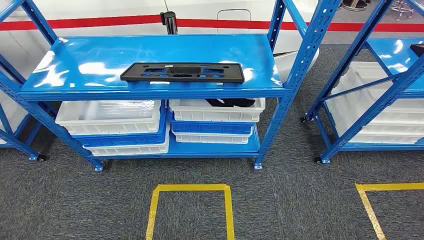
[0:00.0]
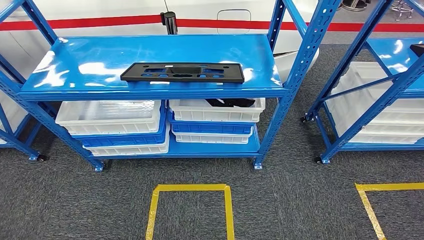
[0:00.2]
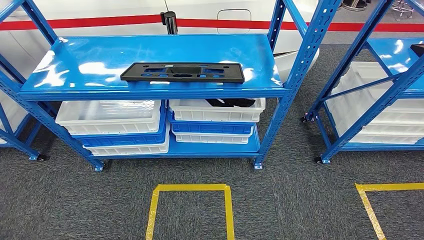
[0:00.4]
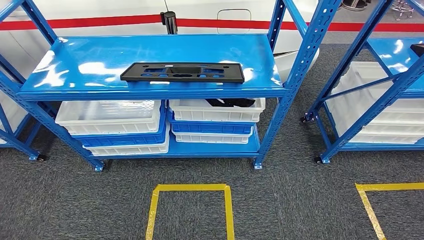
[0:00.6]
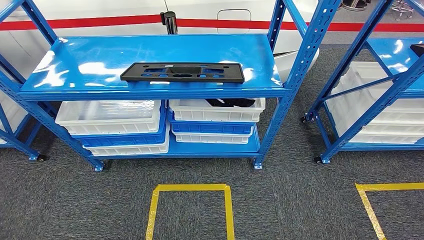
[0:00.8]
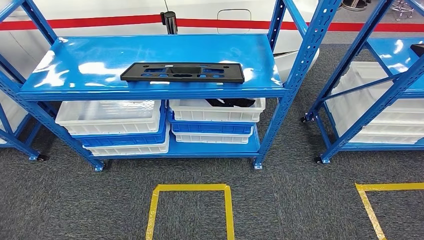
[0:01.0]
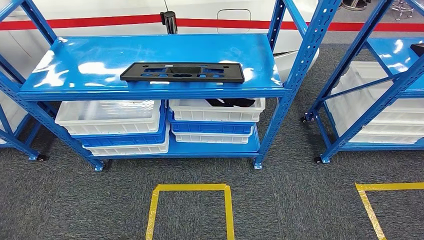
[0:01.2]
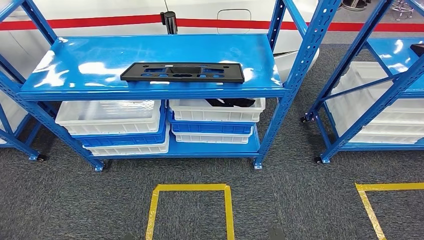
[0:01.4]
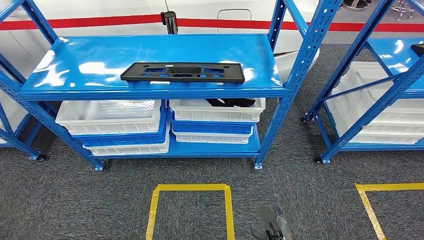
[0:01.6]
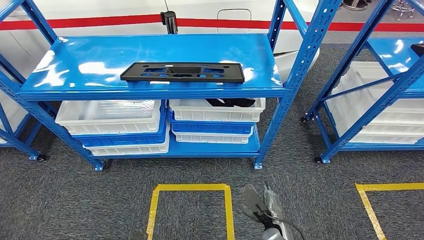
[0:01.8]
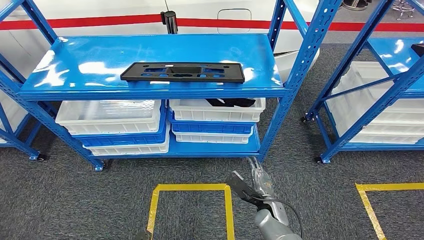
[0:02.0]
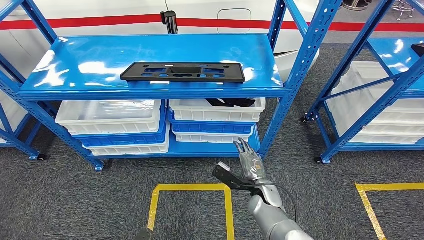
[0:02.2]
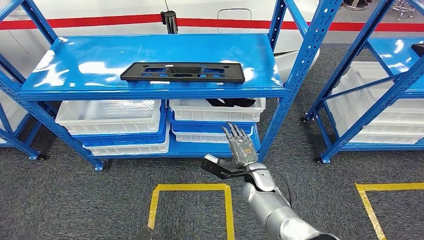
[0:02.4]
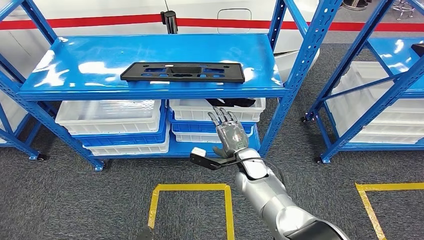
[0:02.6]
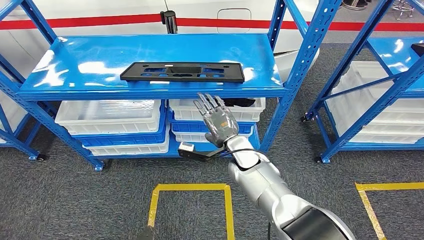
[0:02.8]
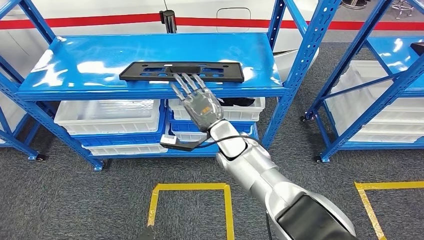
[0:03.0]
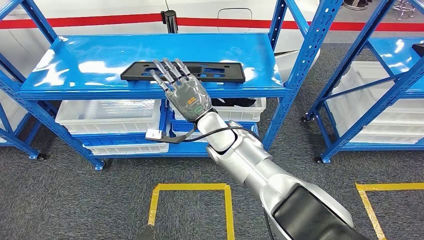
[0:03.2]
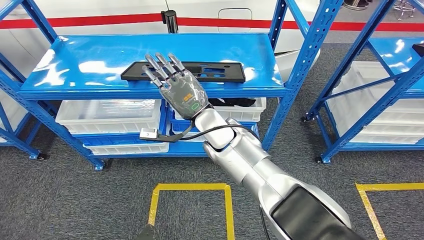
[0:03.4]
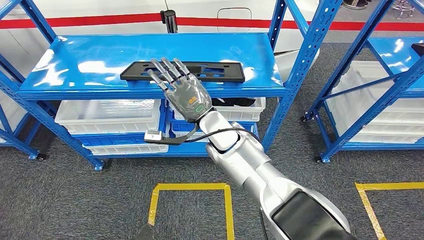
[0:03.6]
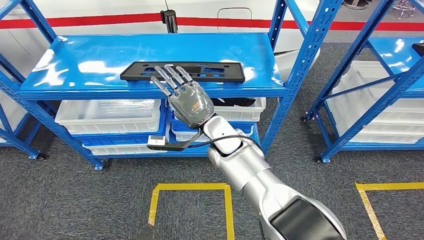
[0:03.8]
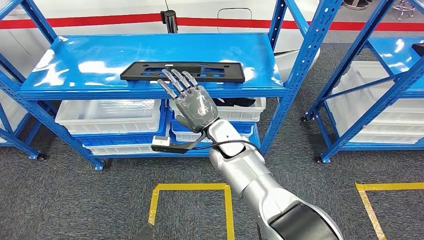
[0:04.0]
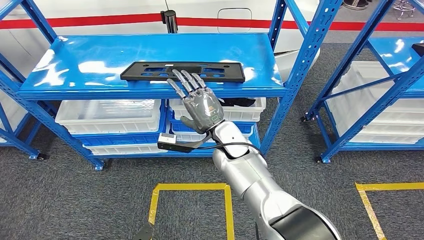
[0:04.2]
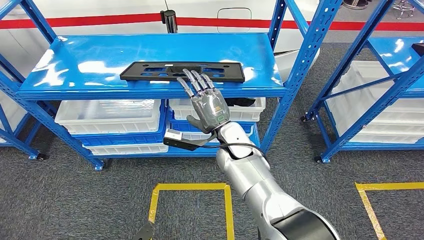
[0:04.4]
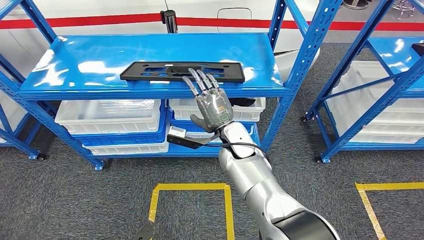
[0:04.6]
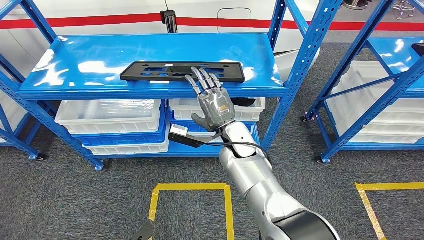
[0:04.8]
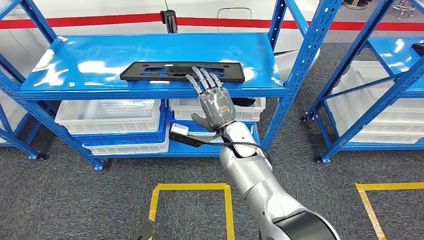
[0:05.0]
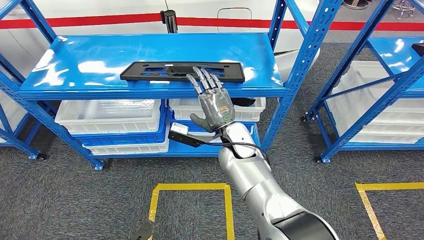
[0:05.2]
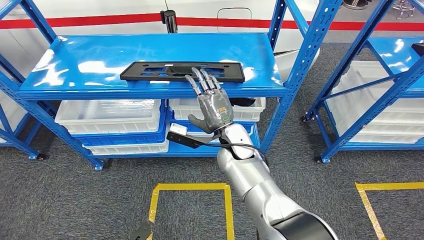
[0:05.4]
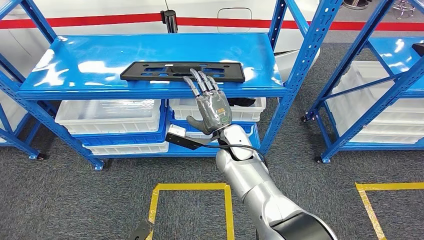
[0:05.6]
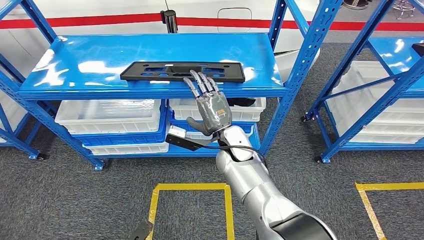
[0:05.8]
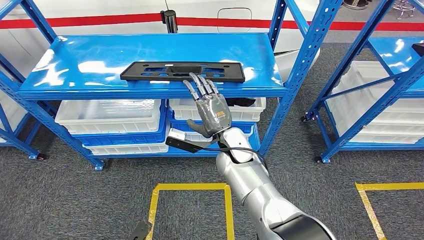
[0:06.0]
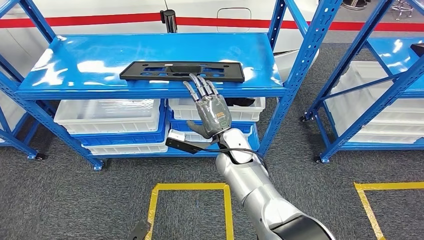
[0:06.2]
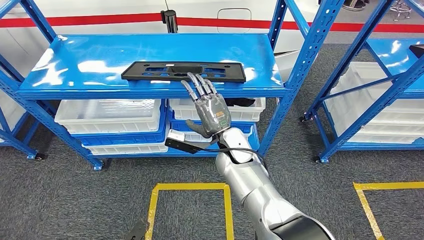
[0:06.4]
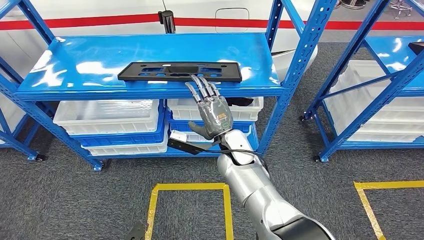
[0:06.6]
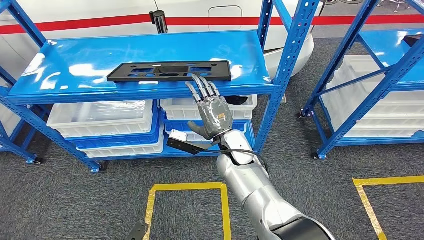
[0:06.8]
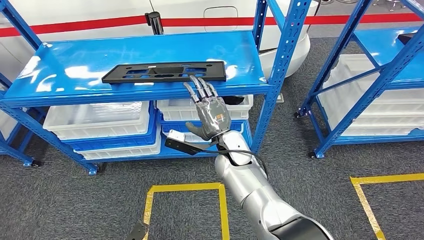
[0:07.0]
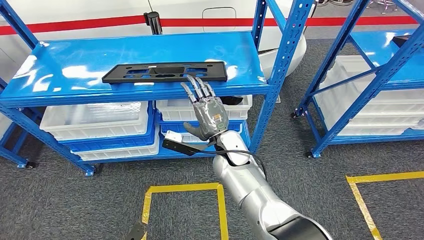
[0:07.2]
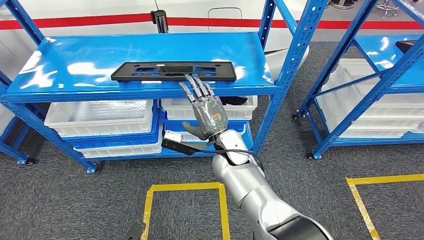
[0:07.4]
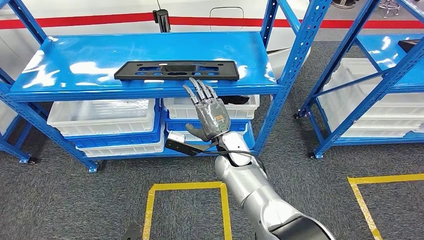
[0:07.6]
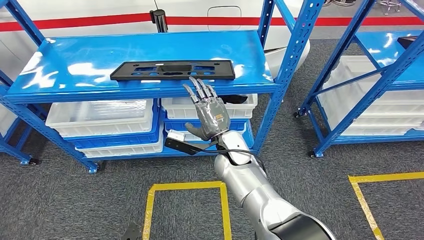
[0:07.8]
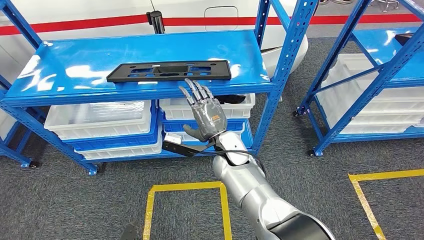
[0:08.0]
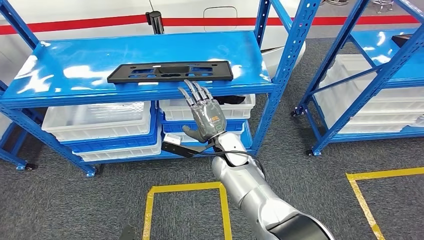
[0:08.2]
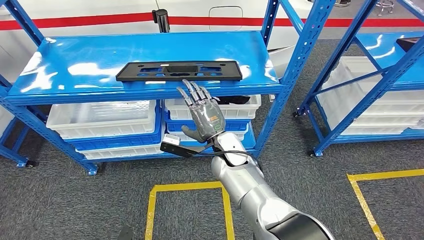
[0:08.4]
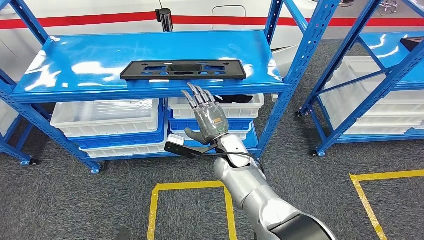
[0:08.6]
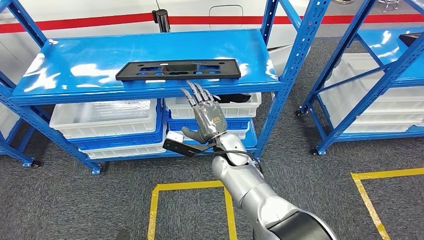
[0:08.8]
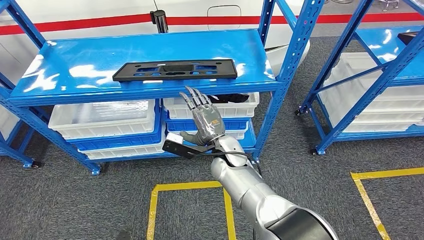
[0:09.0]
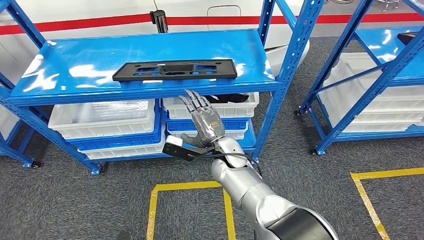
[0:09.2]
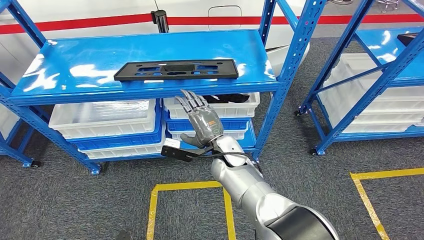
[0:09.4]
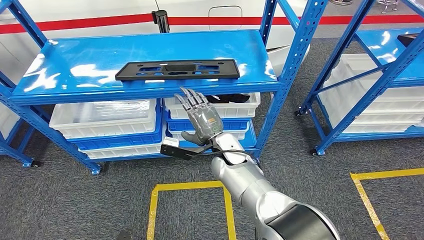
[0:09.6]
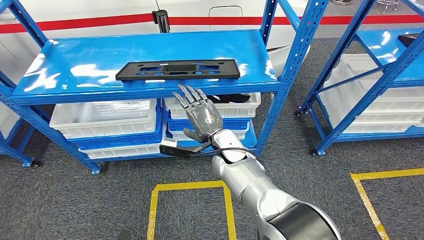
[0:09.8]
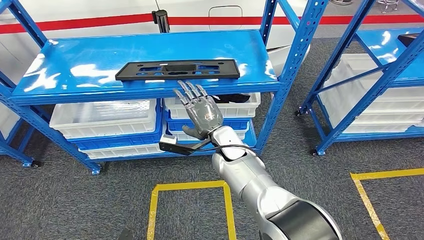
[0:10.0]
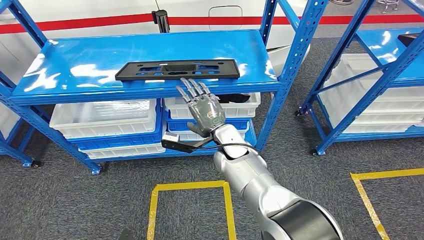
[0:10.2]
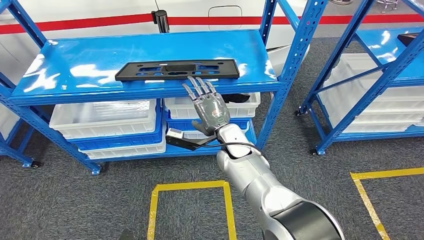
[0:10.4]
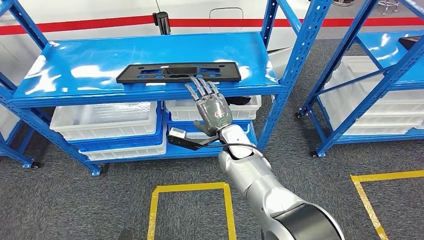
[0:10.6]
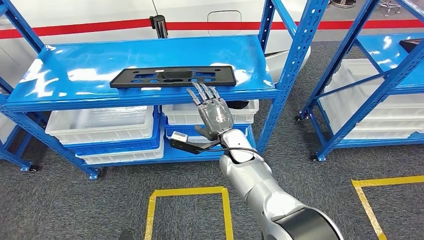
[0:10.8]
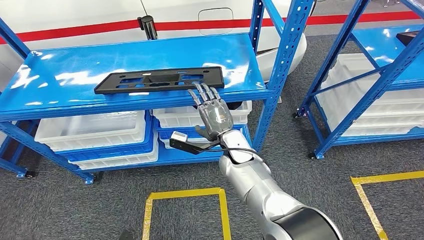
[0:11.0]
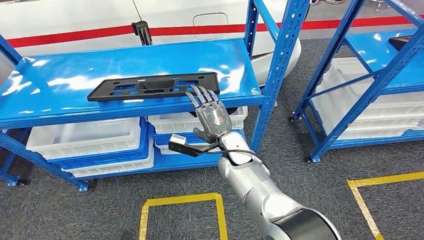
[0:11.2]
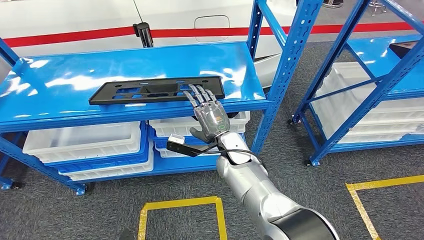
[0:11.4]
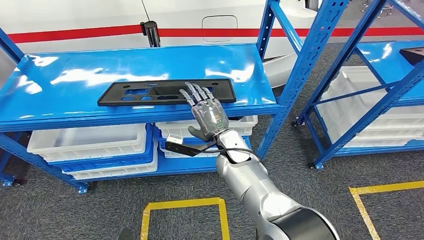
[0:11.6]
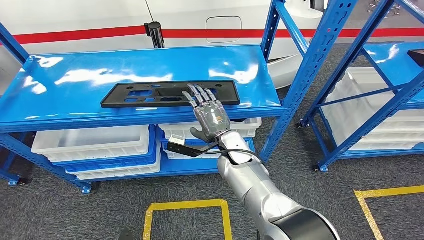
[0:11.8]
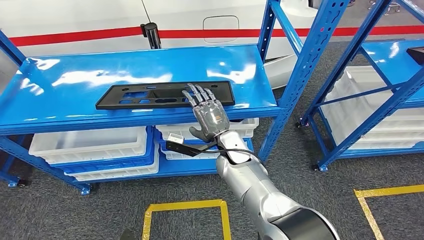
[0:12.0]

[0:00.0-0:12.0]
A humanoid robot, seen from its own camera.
0:01.6 to 0:03.0: The right hand moves upward, forward and to the left, some 40 cm.
0:04.4 to 0:06.0: The hands move only a little.
0:09.0 to 0:10.4: There are only small adjustments of the hands.

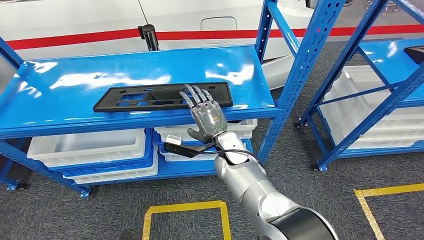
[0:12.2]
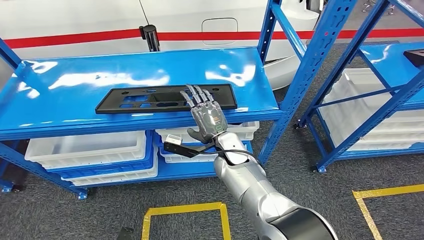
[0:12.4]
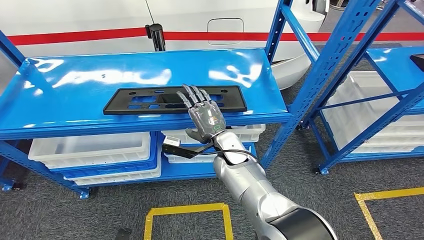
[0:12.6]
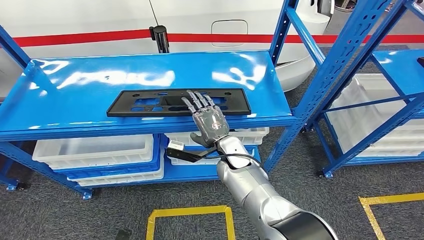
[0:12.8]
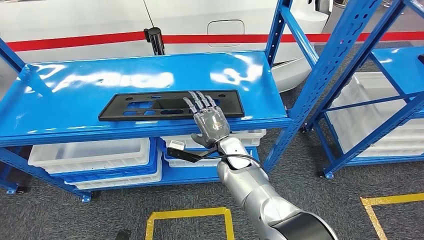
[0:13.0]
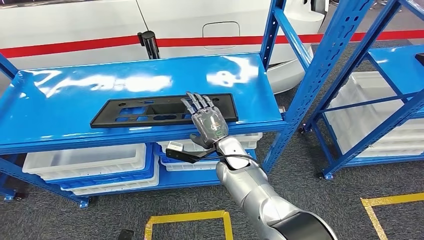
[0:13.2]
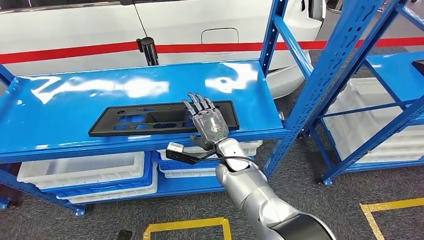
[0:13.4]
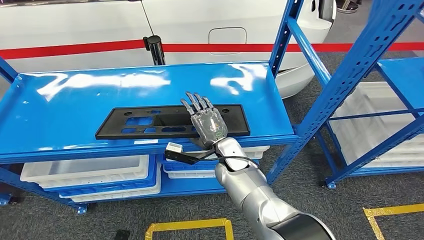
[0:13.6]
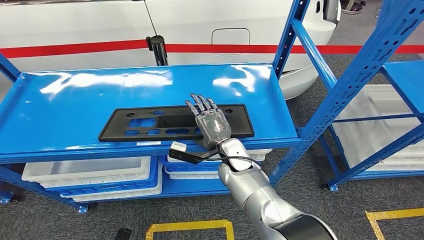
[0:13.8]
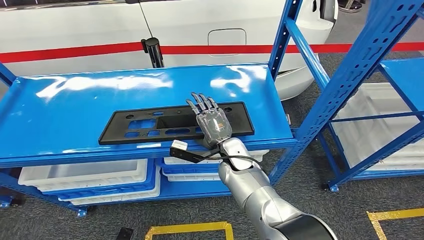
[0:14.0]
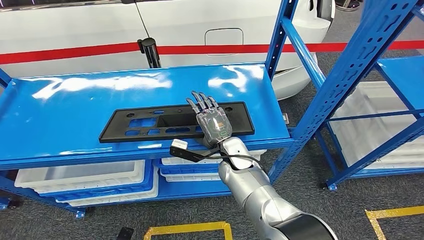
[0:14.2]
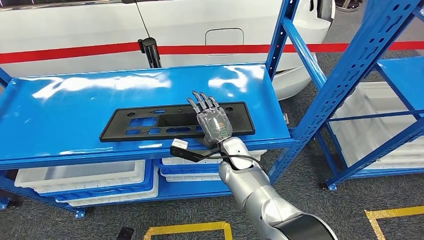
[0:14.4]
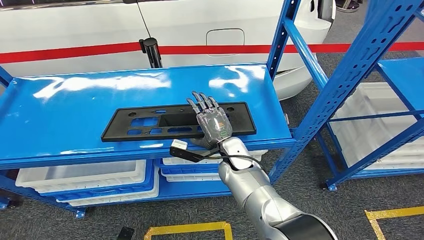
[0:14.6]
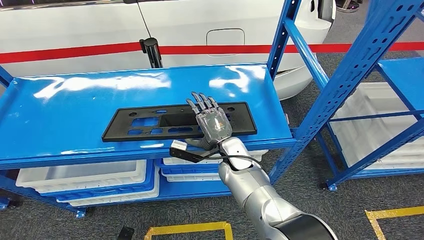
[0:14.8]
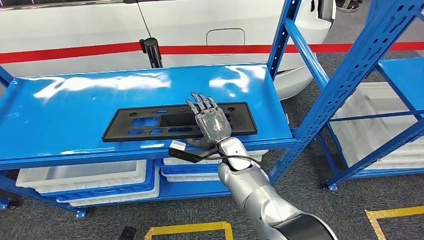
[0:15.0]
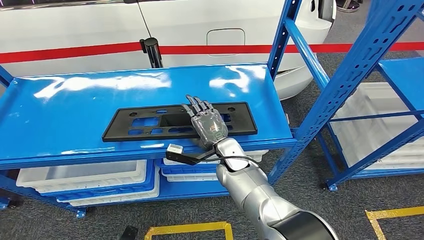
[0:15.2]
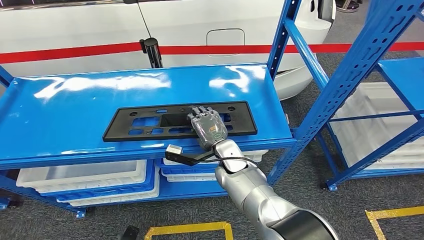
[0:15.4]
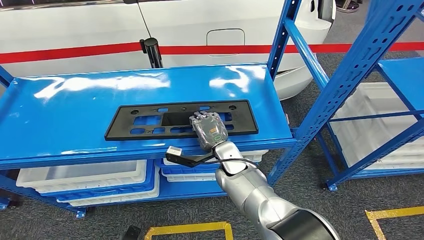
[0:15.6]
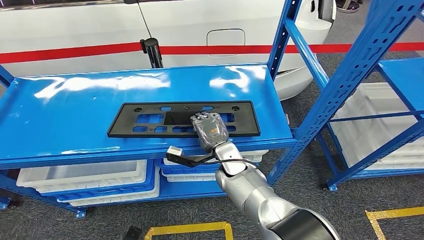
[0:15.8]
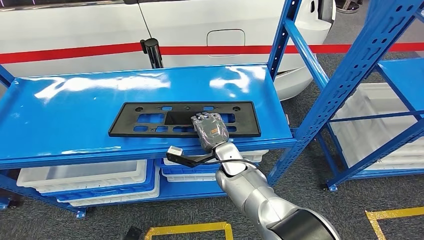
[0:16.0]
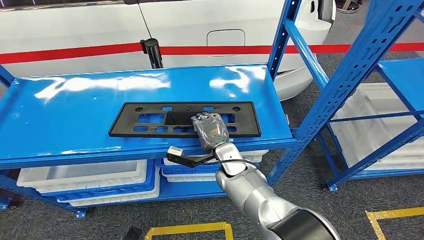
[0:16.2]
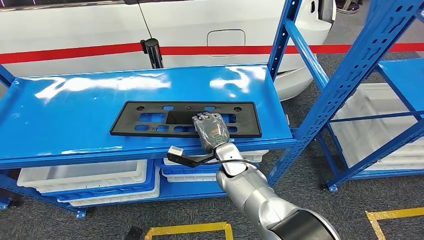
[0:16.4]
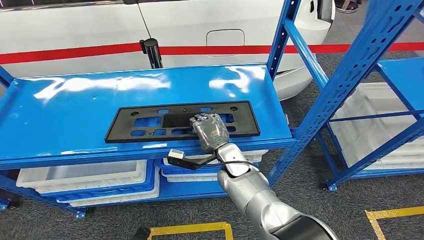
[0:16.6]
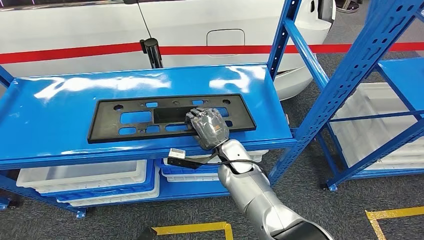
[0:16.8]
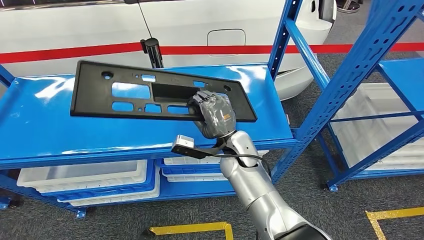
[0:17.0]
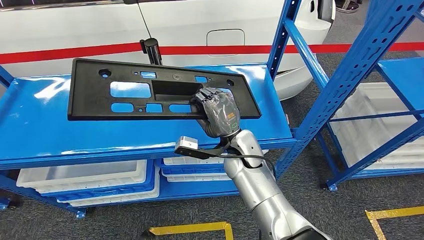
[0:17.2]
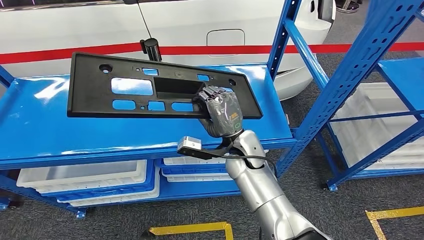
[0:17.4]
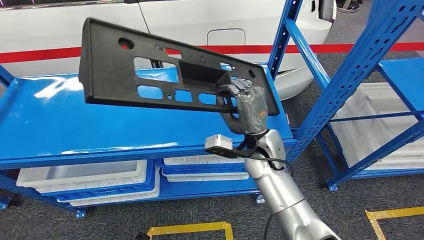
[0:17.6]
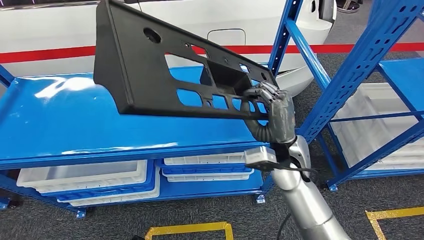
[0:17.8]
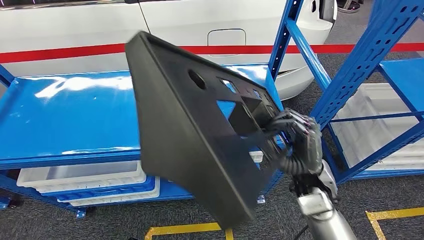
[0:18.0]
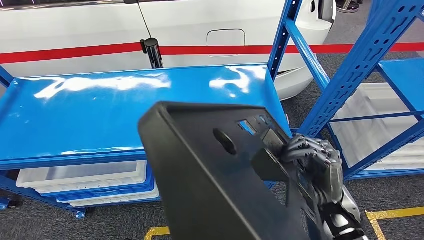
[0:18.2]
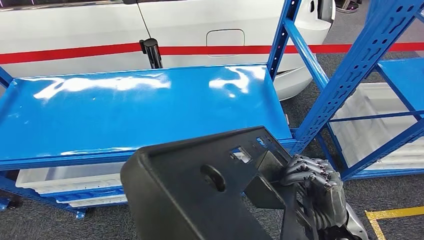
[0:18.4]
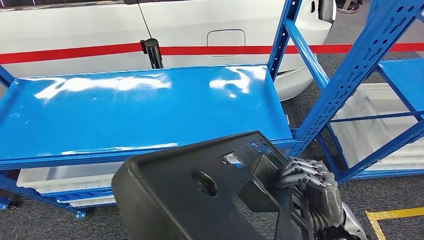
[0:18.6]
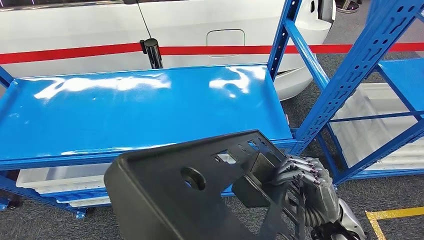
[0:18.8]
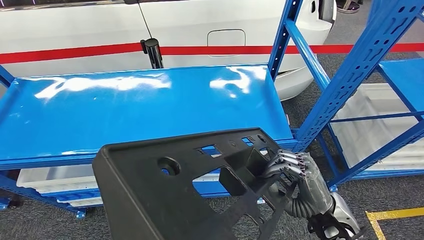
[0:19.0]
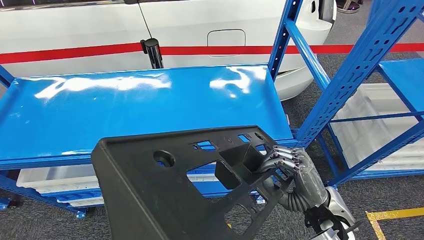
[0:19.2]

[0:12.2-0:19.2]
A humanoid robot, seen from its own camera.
Step, 0:12.2 to 0:17.2: Pick up the large material from the shelf.
0:15.0 to 0:16.4: The hands stay close to where they were, moving slightly.
